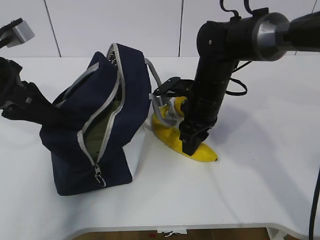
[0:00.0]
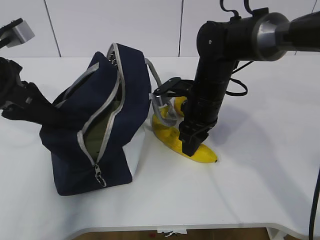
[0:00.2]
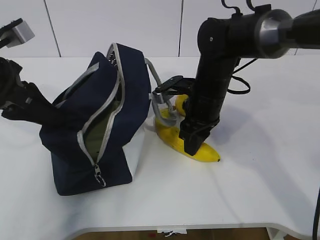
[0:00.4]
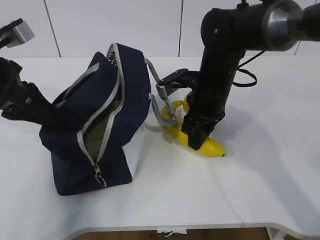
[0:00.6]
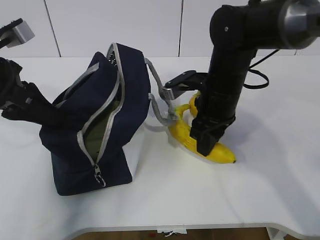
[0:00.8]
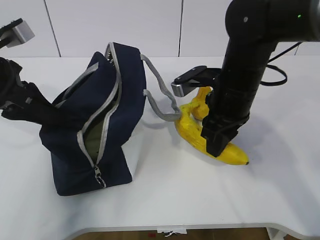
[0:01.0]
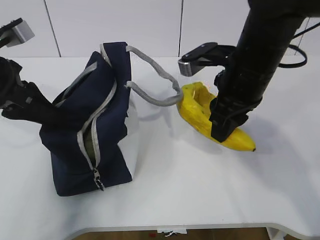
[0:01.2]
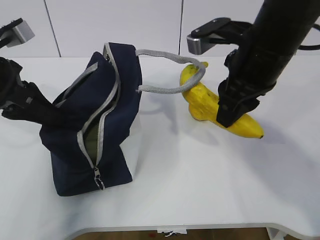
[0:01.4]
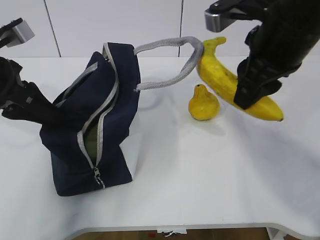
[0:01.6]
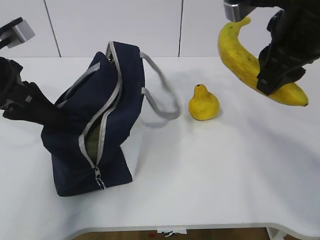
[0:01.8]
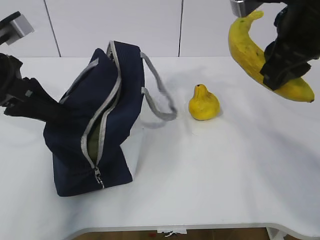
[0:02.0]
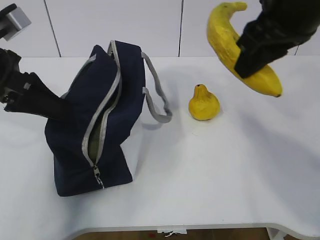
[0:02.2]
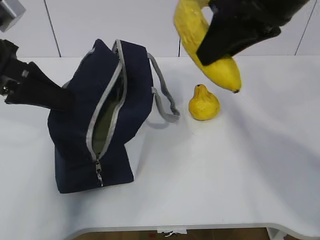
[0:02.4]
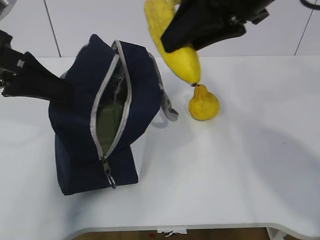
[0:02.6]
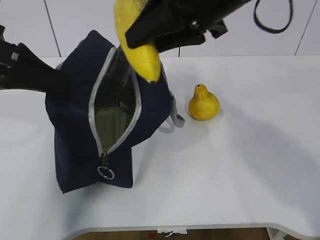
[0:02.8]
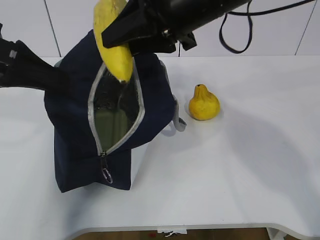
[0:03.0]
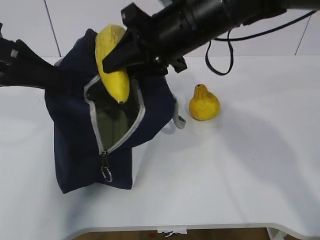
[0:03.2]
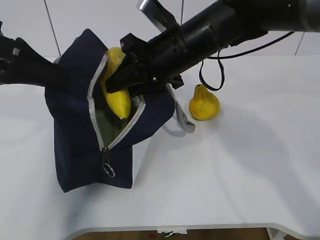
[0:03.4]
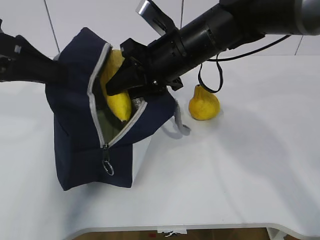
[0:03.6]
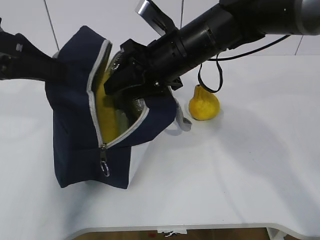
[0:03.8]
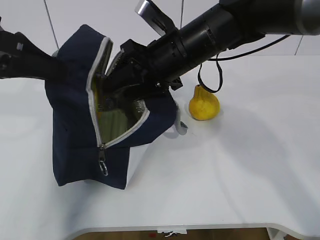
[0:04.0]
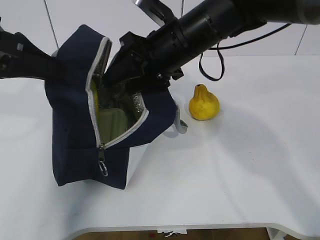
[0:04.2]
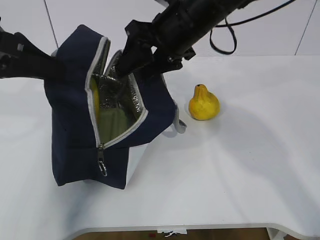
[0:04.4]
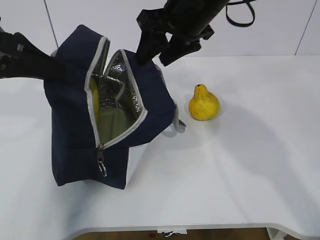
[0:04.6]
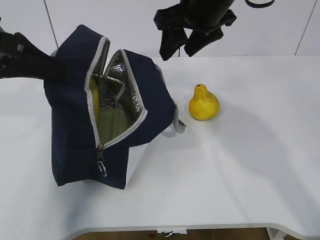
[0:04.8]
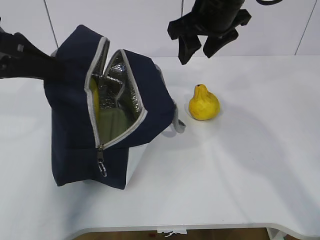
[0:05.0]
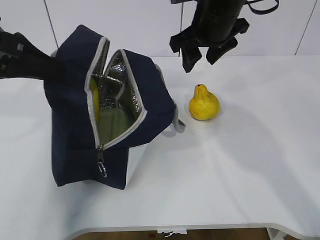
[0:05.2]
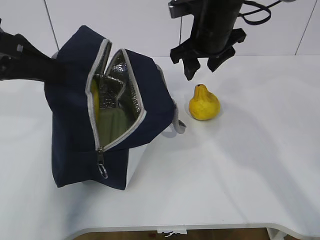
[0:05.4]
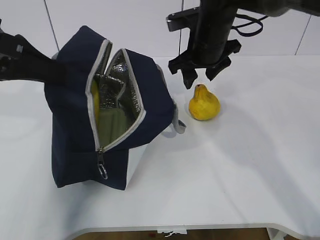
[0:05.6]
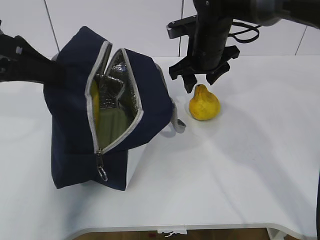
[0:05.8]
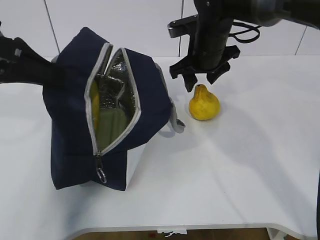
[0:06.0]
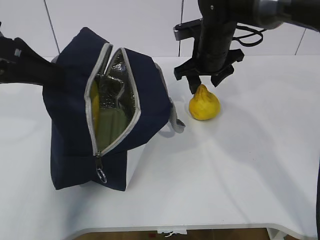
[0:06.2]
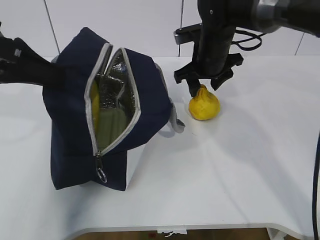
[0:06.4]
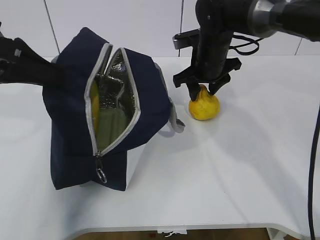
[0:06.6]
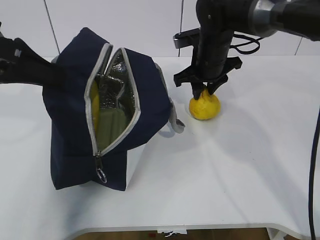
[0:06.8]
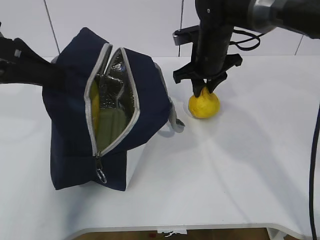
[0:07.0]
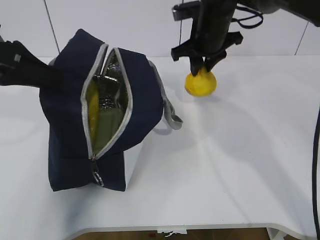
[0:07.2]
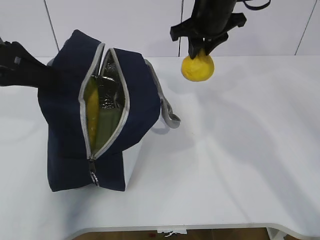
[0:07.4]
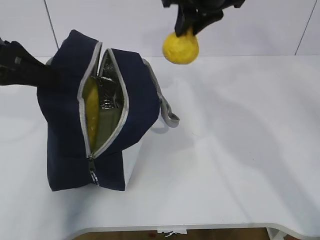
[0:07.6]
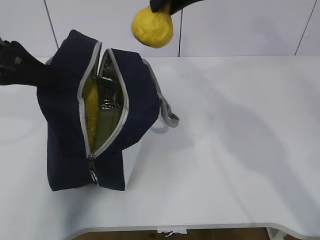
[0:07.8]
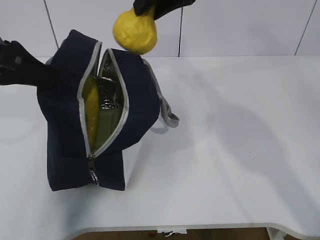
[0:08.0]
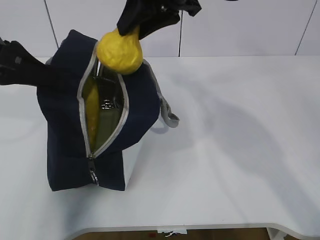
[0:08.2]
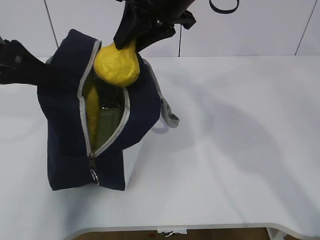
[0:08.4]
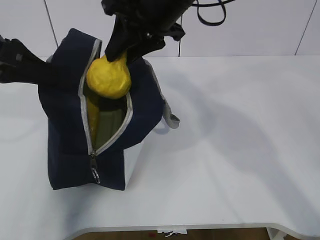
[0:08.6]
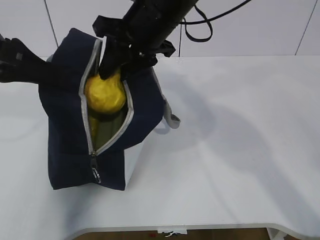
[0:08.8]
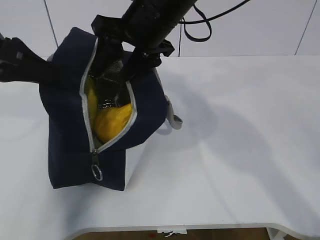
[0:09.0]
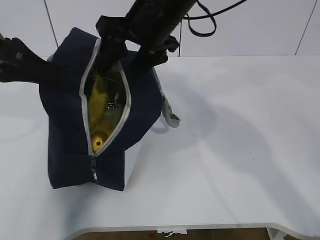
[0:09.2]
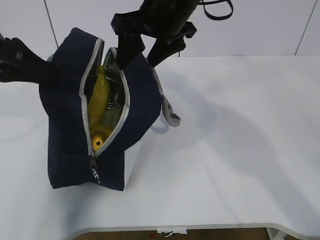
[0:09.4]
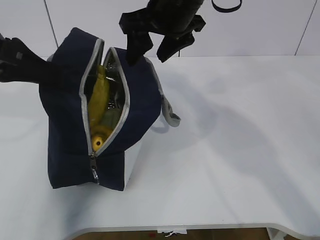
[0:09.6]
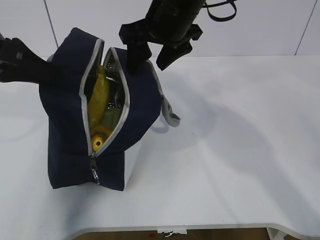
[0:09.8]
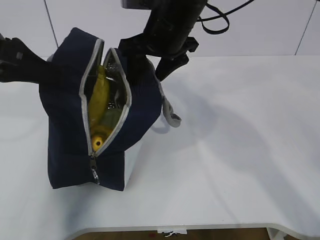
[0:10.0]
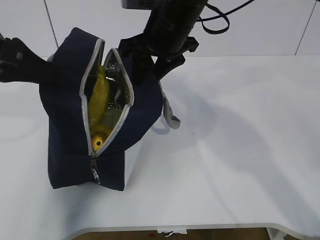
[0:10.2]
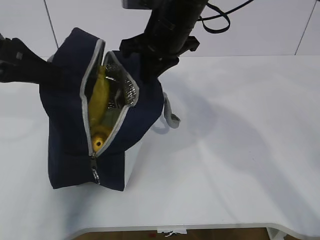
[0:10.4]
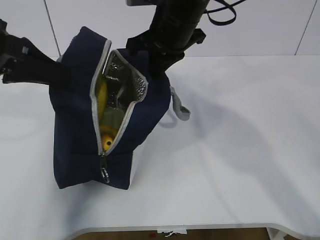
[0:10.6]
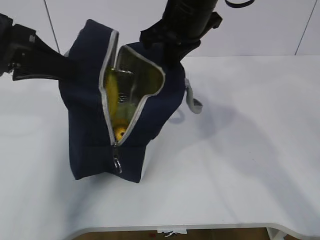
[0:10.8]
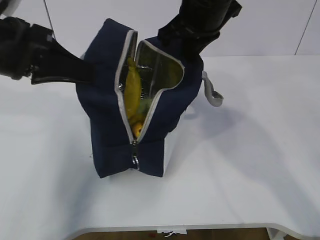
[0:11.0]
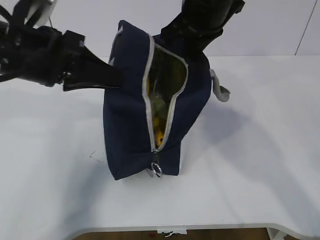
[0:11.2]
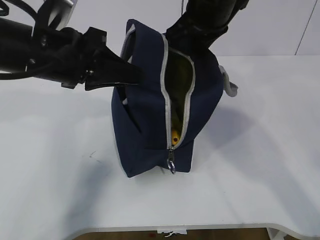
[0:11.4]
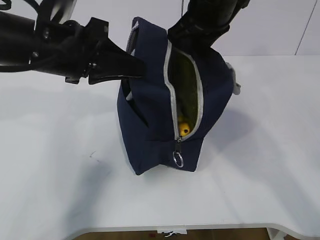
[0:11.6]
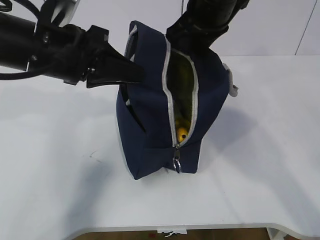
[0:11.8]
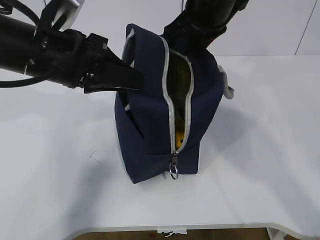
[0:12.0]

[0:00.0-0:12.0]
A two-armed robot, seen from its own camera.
Step, 0:00.4 to 0:04.4: Place the banana into the package with the right gripper.
Step, 0:04.6 to 0:06.8: Grasp the pear with the right gripper.
Step, 0:07.0 to 0:09.0: Place the pear into the package with the right gripper.
0:00.0 to 0:01.6: The right gripper is displaced upward and backward by roughly 20 cm.
0:01.6 to 0:03.0: The right gripper is displaced to the left by some 10 cm. Meanwhile the left gripper shifts about 5 cm upward.
0:03.0 to 0:04.4: The right gripper goes approximately 5 cm forward and downward, and opens up.
0:04.4 to 0:06.0: The right gripper moves forward, downward and to the right, some 10 cm.
0:06.0 to 0:07.6: The right gripper goes some 10 cm upward, and closes its fingers.
0:07.6 to 0:09.0: The right gripper heads to the left, covering some 10 cm, and opens.
0:09.0 to 0:10.4: The right gripper closes up.
0:10.4 to 0:12.0: The left gripper shifts about 10 cm to the right, while the right gripper moves some 5 cm.

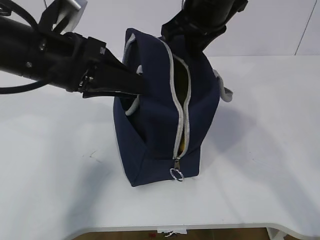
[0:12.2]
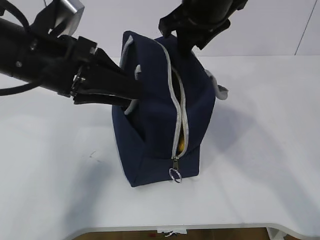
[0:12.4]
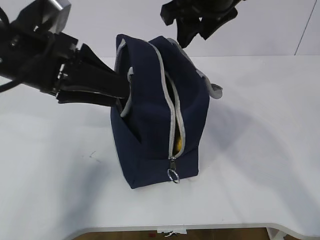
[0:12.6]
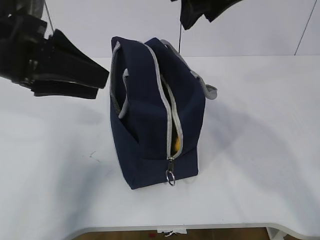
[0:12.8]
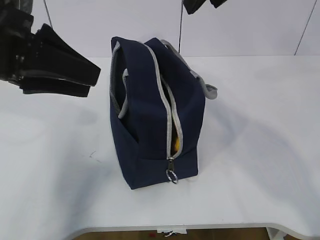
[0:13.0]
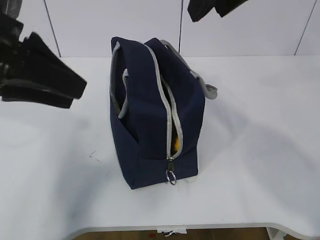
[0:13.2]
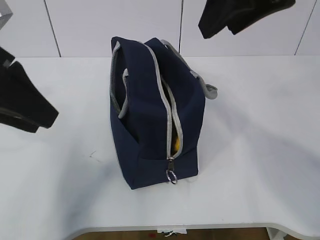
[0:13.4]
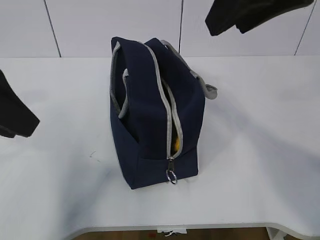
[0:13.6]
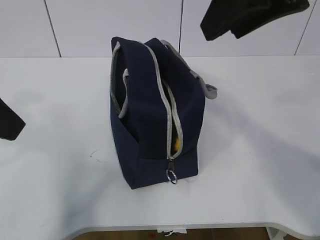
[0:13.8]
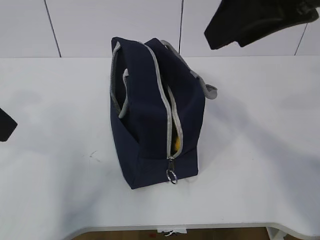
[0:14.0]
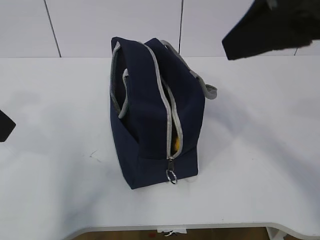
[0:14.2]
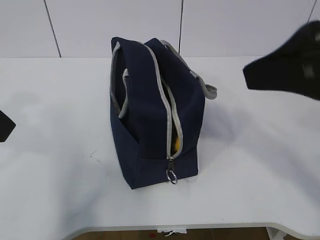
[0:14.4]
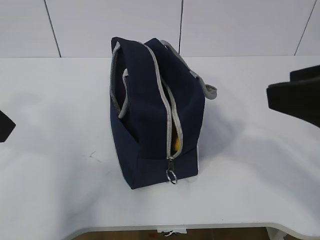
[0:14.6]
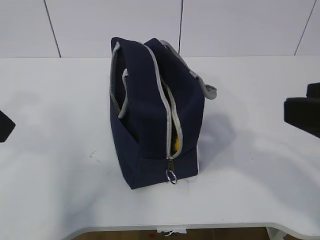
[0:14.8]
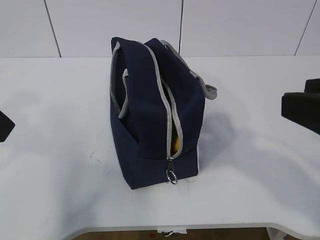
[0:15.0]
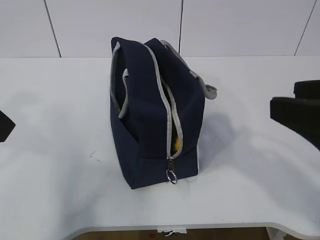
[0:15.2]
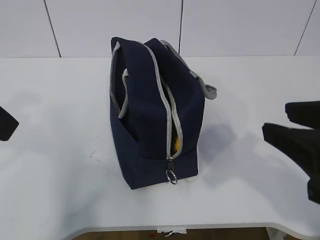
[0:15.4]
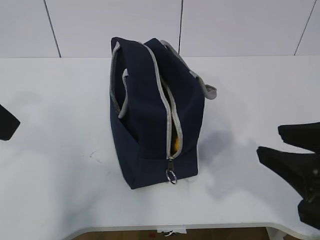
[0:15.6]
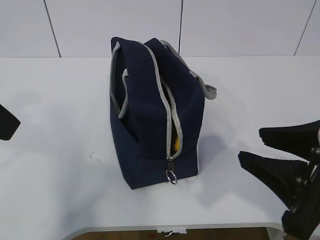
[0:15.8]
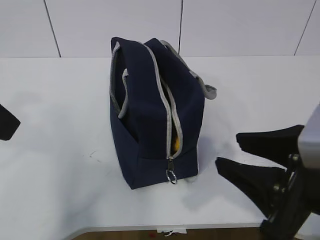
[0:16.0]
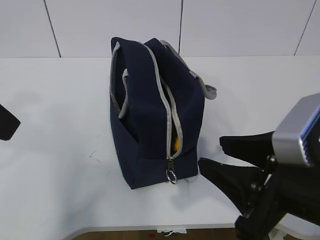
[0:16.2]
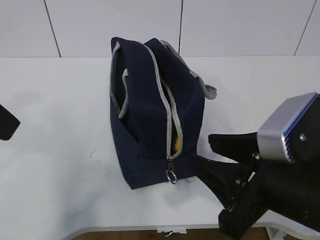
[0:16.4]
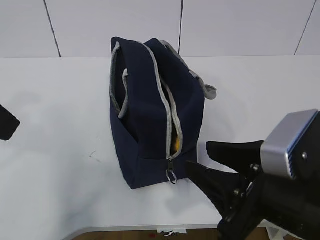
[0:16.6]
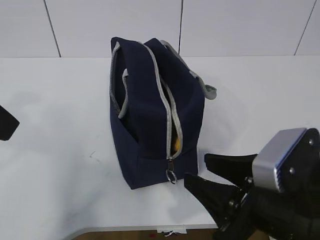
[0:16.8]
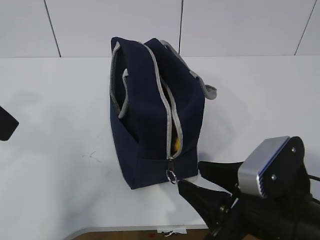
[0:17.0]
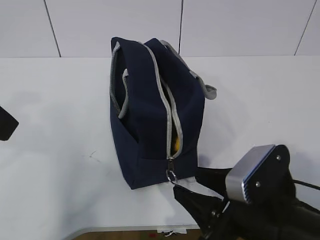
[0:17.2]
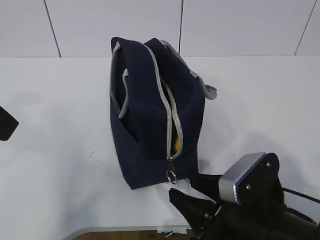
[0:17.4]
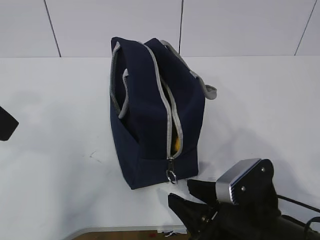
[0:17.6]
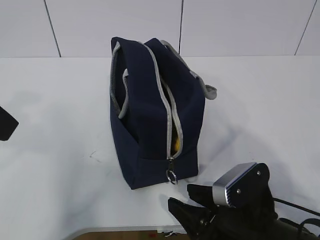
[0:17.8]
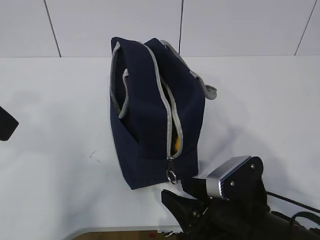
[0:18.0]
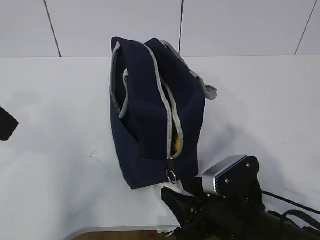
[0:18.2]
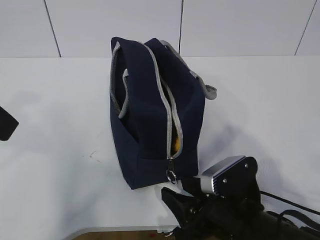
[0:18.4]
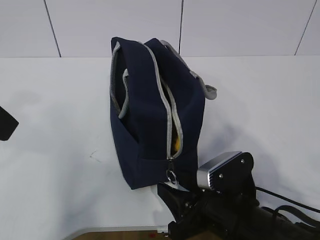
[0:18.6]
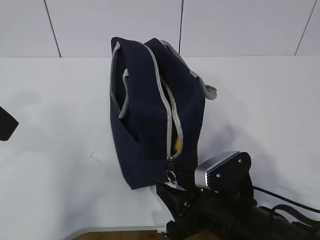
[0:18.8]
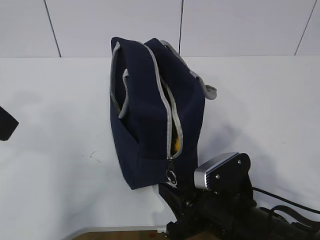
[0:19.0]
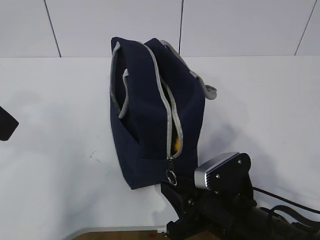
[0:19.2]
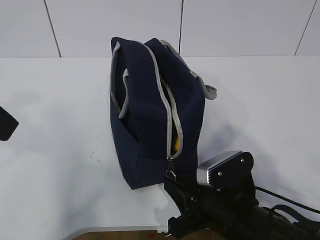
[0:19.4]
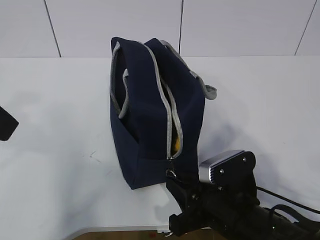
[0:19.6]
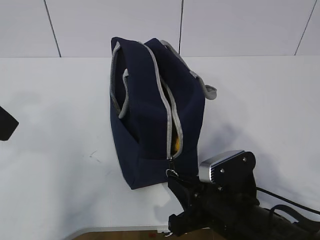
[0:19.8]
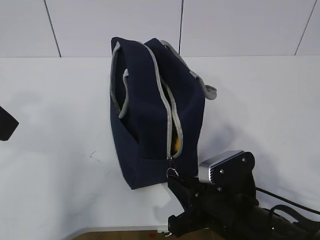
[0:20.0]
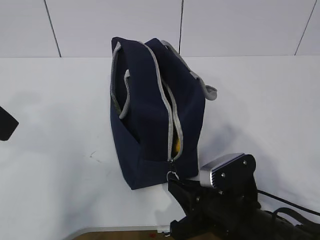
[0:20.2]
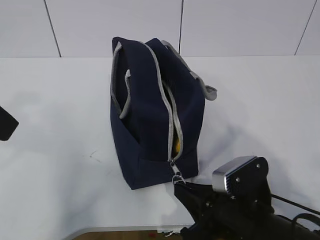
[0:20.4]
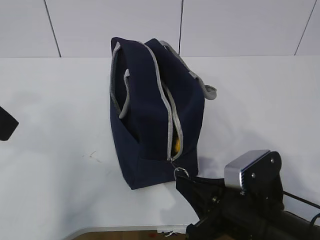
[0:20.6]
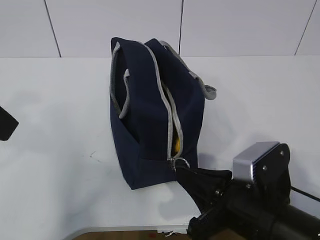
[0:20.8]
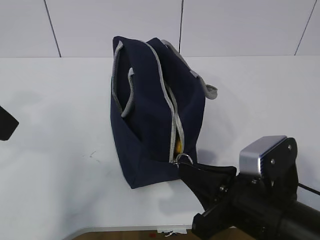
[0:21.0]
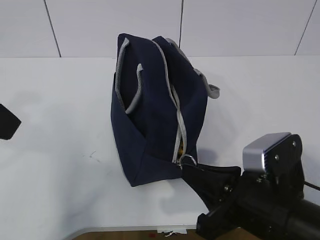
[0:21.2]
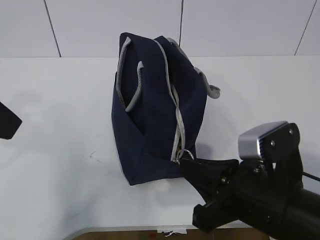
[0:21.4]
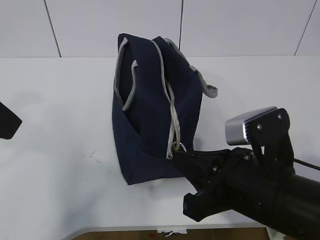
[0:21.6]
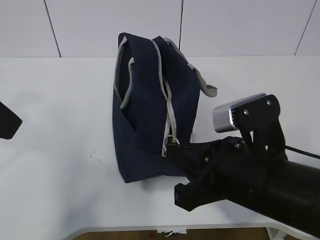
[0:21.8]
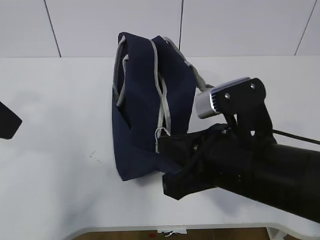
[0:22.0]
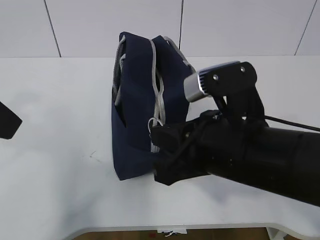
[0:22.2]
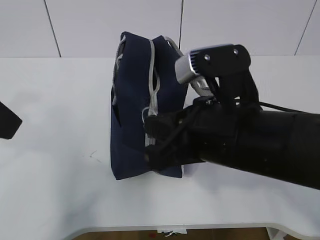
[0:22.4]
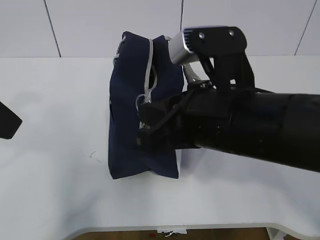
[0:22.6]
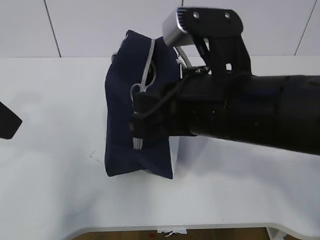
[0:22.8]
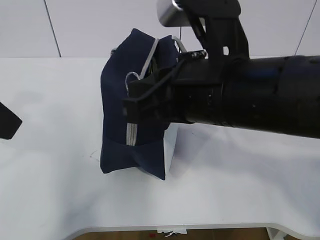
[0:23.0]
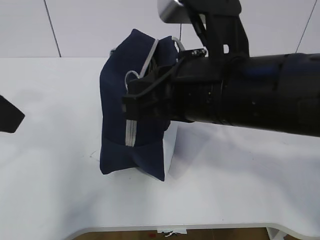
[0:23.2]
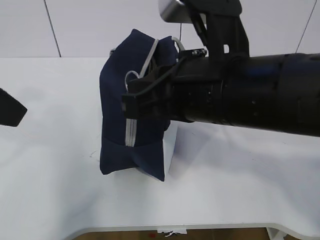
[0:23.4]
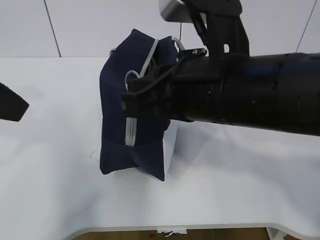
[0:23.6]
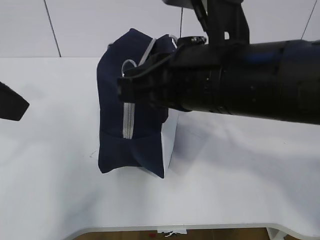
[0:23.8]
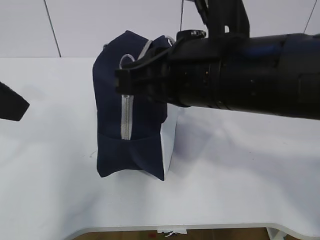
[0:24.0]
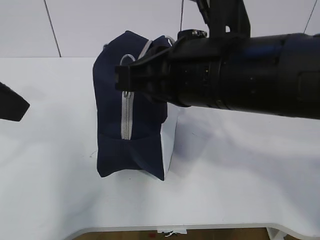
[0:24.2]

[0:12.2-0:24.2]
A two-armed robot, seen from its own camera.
0:12.2 to 0:13.8: The right gripper goes about 15 cm backward and upward, and opens up. Meanwhile the left gripper heads backward, to the left and upward, covering about 15 cm.
0:13.8 to 0:15.2: The right gripper shifts some 15 cm backward, downward and to the right.
0:15.2 to 0:16.6: The right gripper goes approximately 15 cm downward and to the left.
0:16.6 to 0:18.2: The right gripper is displaced downward by roughly 10 cm.
0:18.2 to 0:19.8: The right gripper closes up.
0:19.8 to 0:21.2: The right gripper goes some 5 cm upward.
0:21.2 to 0:22.6: The right gripper goes about 10 cm upward and to the left.
0:22.6 to 0:24.2: The right gripper ends up some 5 cm from where it was.
